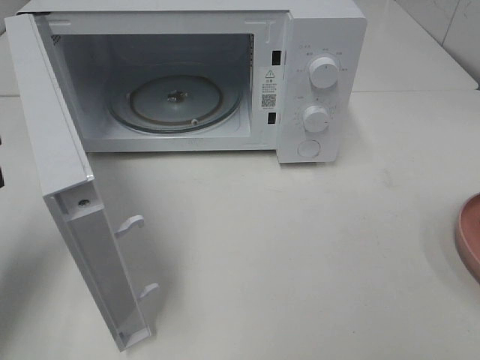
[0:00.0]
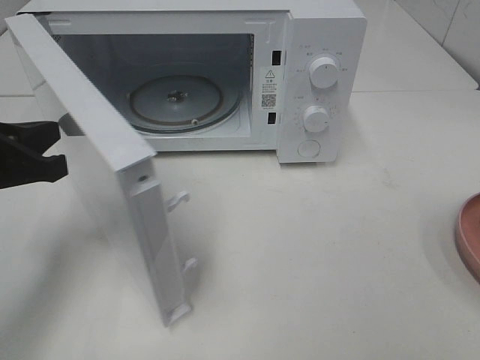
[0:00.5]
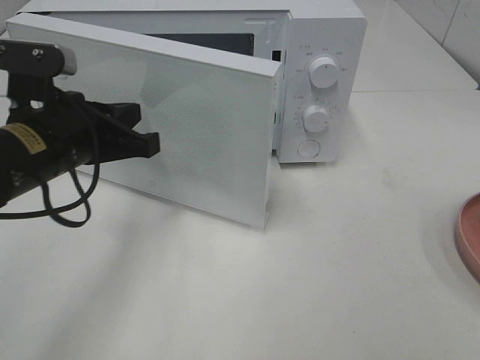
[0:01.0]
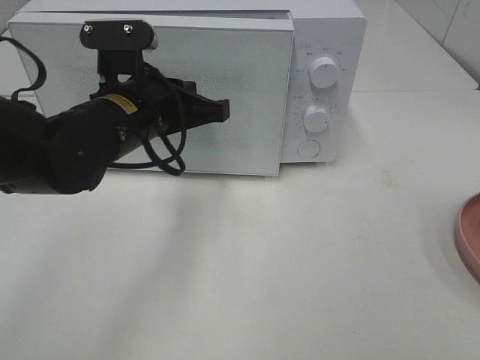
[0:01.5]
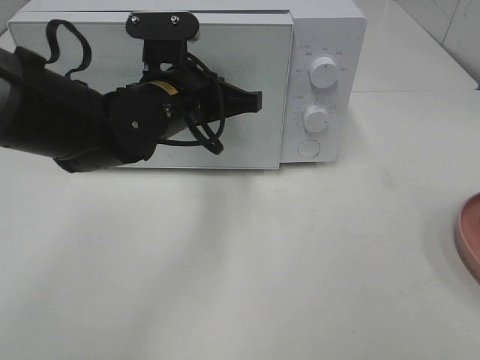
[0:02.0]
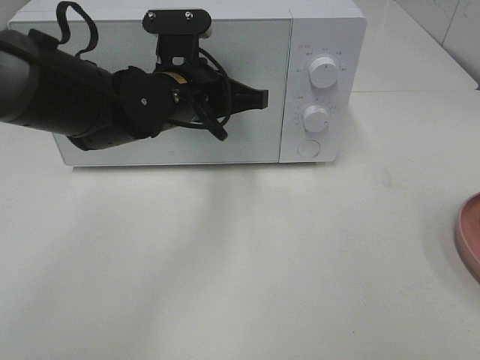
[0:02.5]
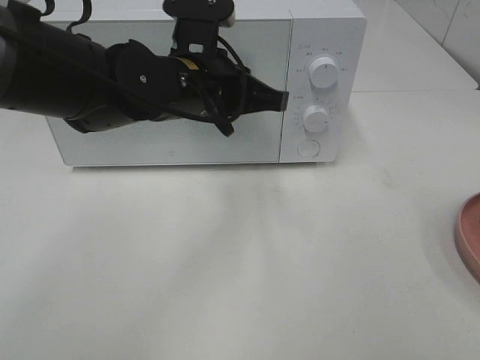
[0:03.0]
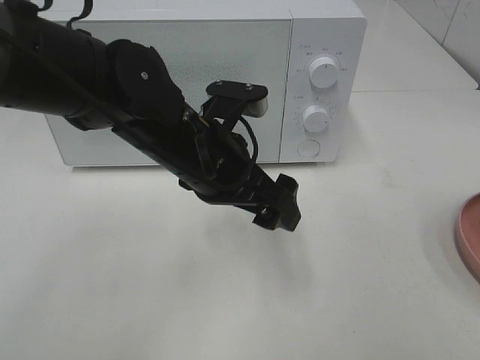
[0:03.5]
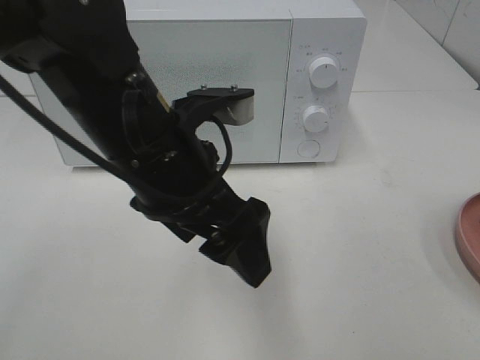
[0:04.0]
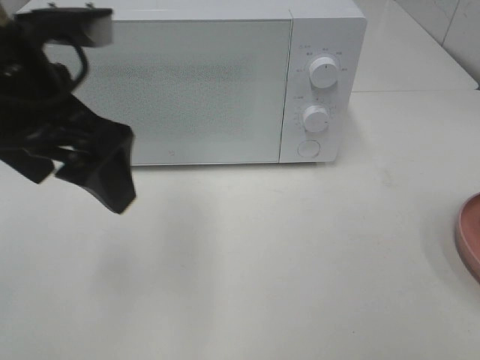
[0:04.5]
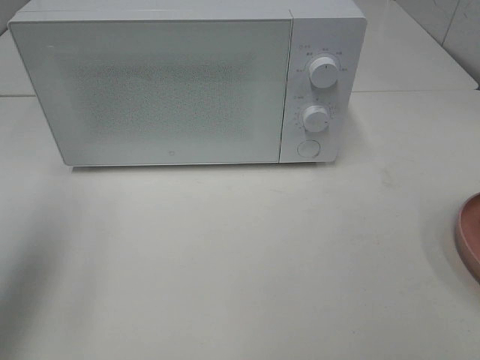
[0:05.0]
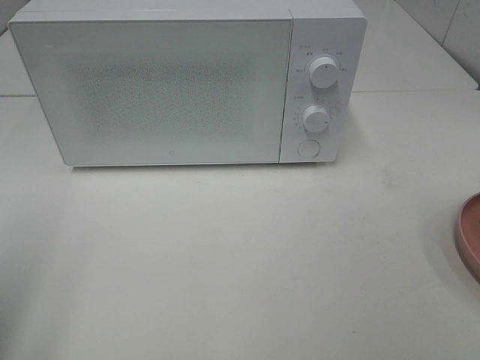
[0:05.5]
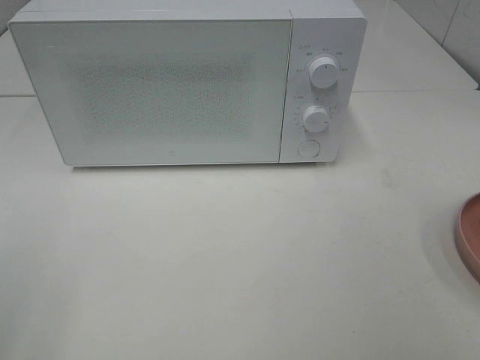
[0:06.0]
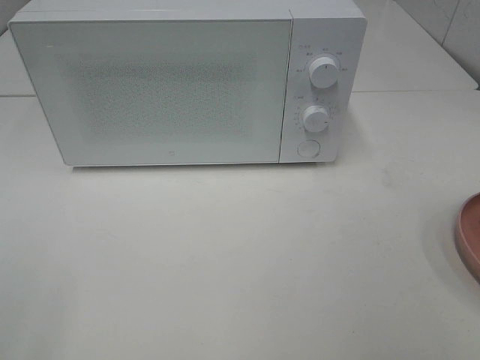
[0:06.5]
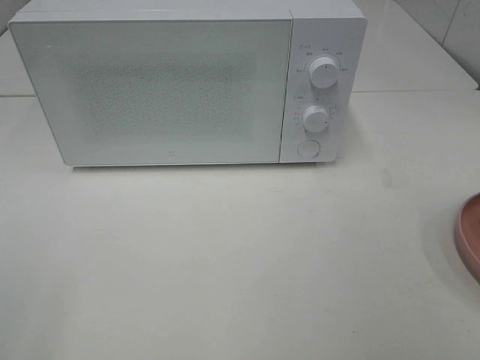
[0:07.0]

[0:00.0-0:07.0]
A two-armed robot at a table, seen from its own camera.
Task of the whole recording: Heat the burger.
Step, 0:00.0 to 0:02.5: Left hand: close the microwave door.
0:00.0 to 0:02.0: The left gripper is displaced to the right and forward by about 25 cm.
0:02.0 to 0:03.5: The left gripper goes about 5 cm backward, and opens up.
0:03.5 to 0:05.0: The left gripper heads to the left and upward, covering approximately 30 cm.
0:05.0 to 0:07.0: The left gripper travels backward by about 20 cm.

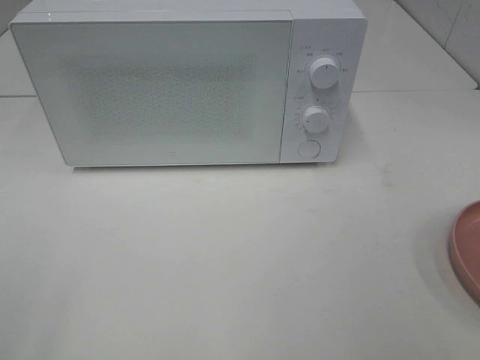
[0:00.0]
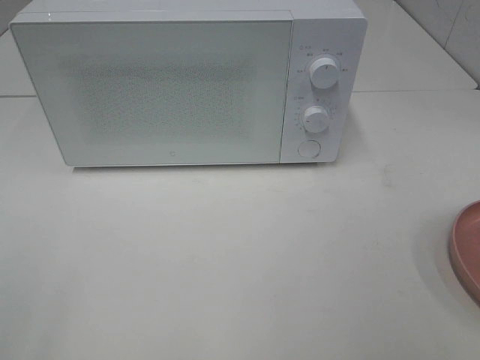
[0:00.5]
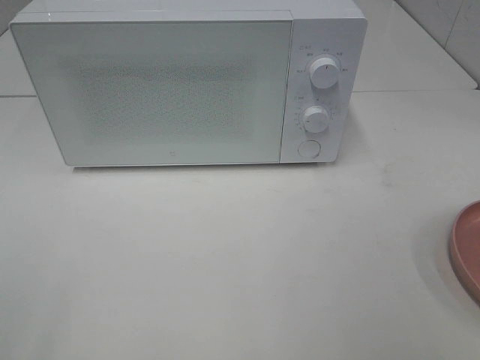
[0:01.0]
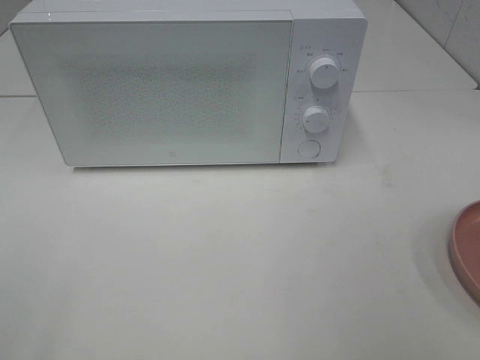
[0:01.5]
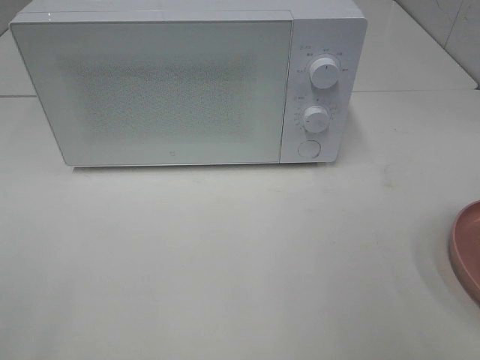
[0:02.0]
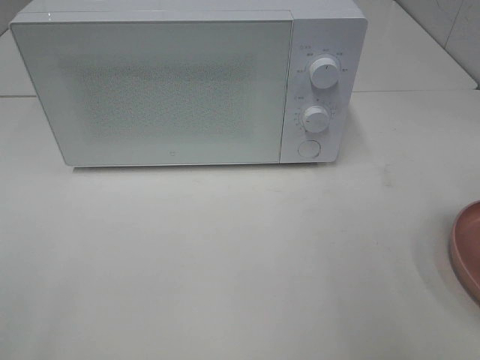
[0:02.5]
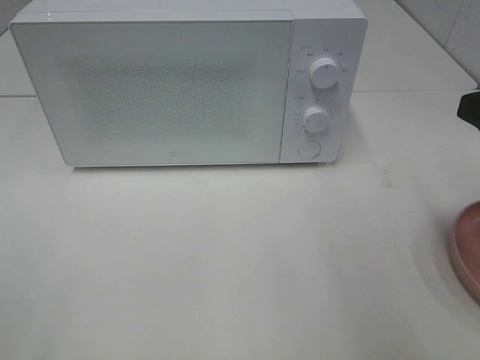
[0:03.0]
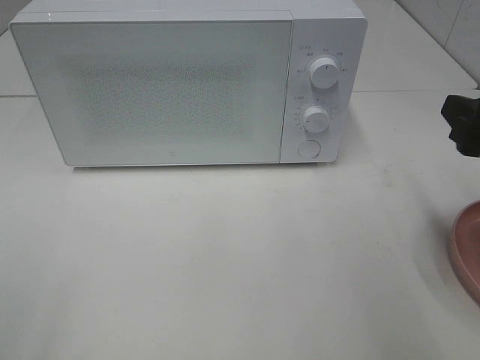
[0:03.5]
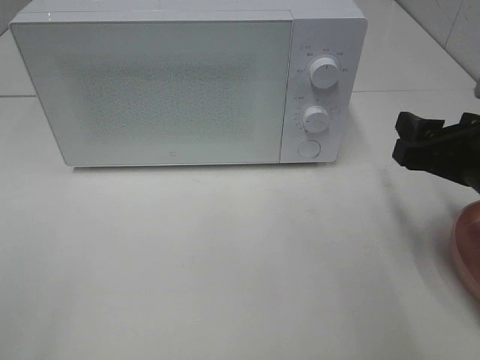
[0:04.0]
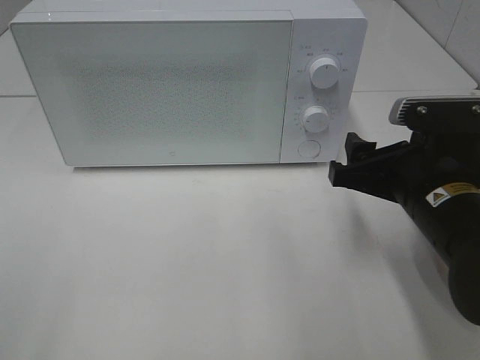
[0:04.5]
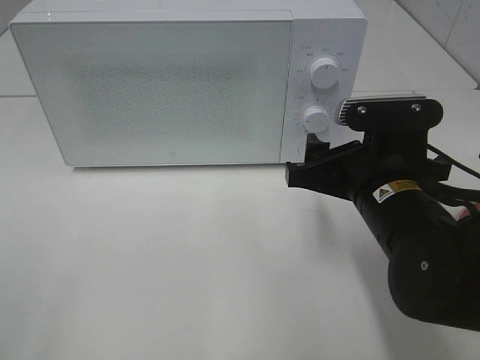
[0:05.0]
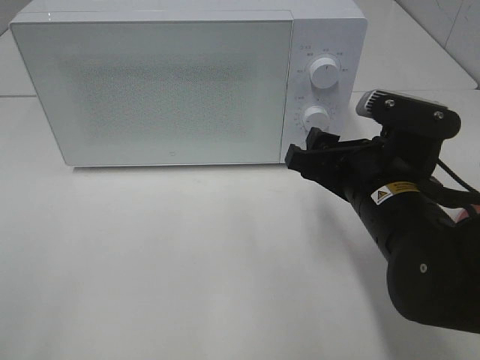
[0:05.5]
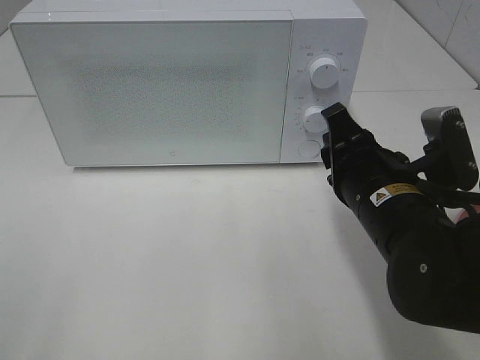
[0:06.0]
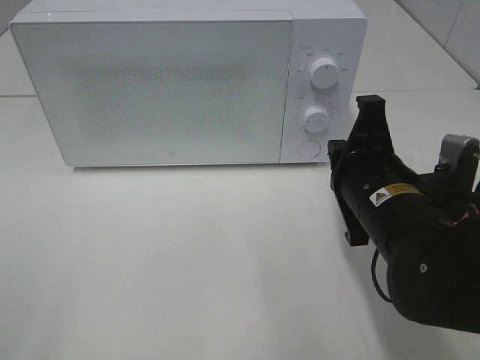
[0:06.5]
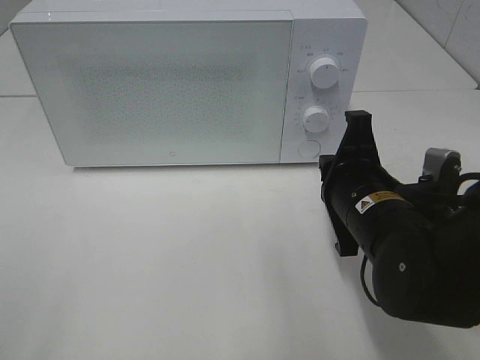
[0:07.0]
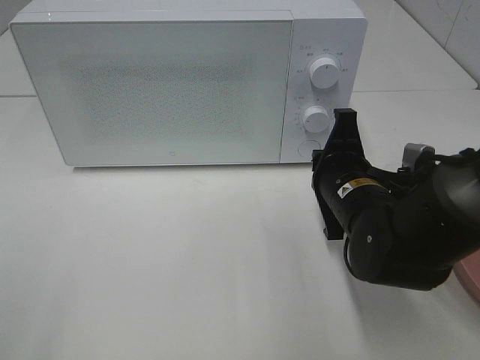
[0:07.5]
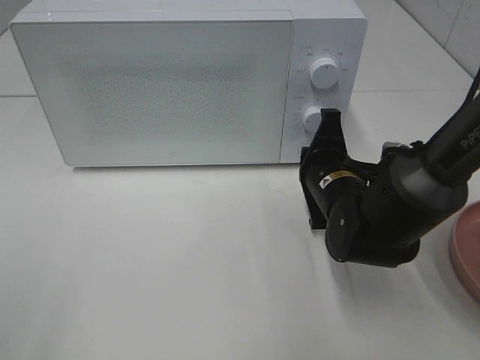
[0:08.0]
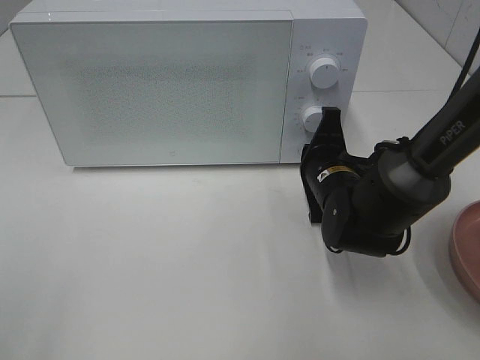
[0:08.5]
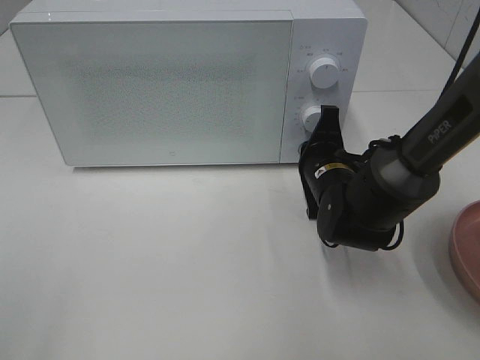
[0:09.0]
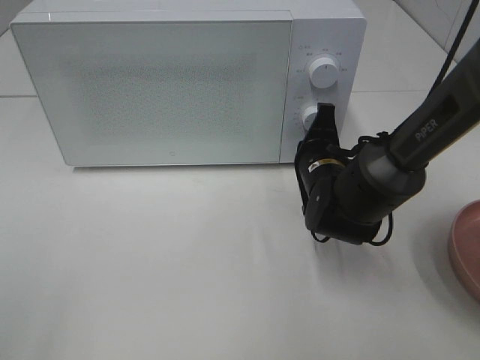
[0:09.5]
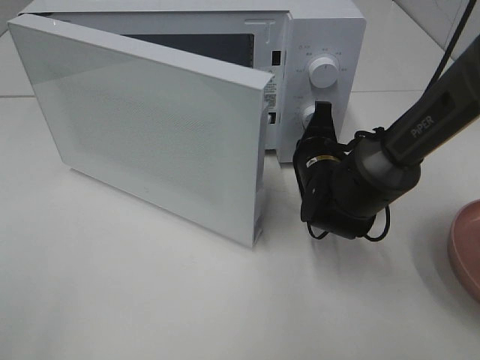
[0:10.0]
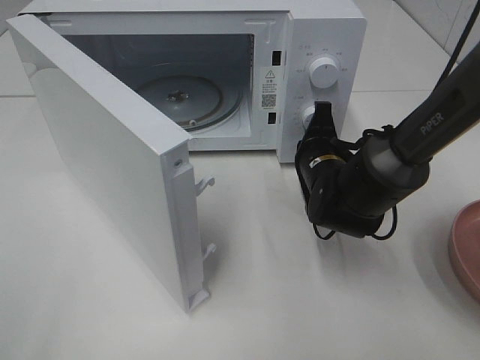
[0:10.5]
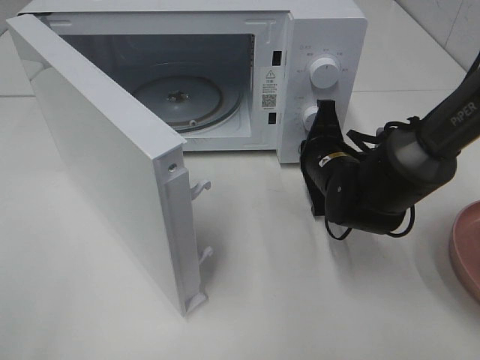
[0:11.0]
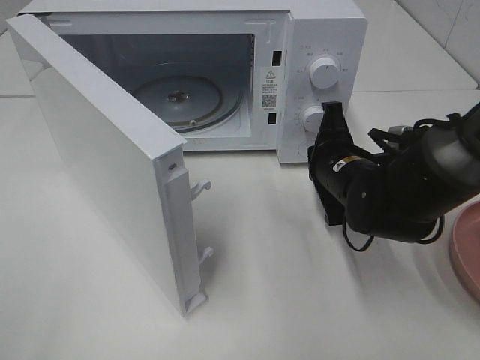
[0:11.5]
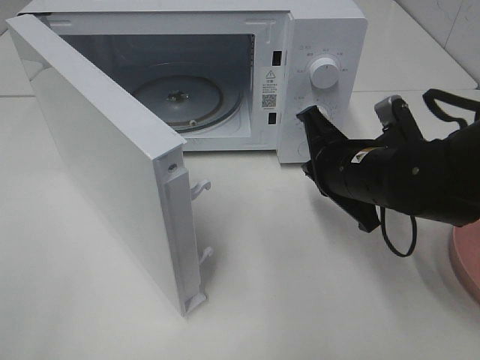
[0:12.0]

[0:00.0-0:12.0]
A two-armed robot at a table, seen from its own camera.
Task of the whole recording: Heat the burger.
Step, 0:00.0 to 0:11.0: Right hand: press the switch.
0:02.0 to 0:04.0: The right gripper moves downward and forward, some 15 cm.
0:04.0 to 0:06.0: The right gripper moves to the left, about 10 cm, and closes.
0:06.0 to 0:08.0: The right gripper travels forward and downward by approximately 10 cm, and closes up.
0:08.0 to 0:10.0: The right gripper ends up roughly 5 cm from where it was.
0:10.0 to 0:12.0: The right gripper moves backward and upward, roughly 10 cm.

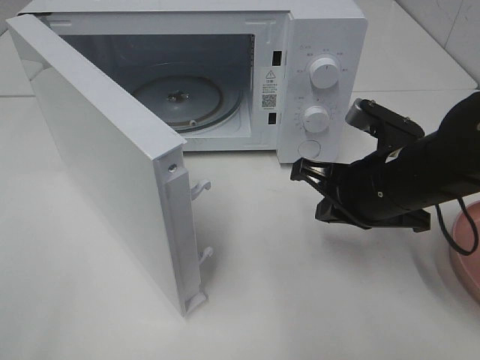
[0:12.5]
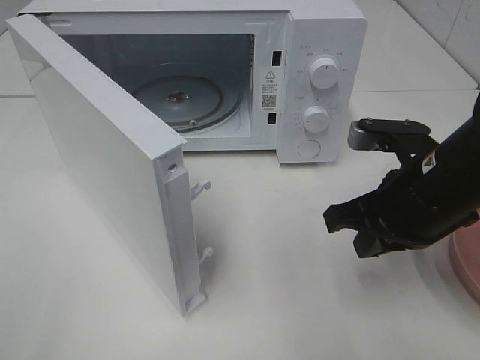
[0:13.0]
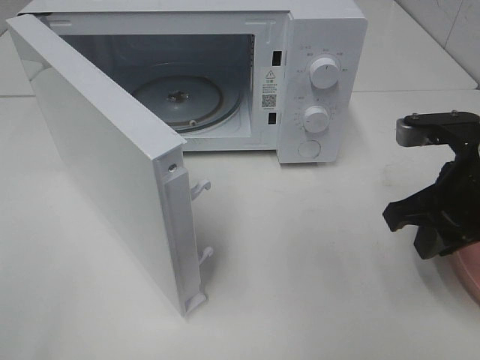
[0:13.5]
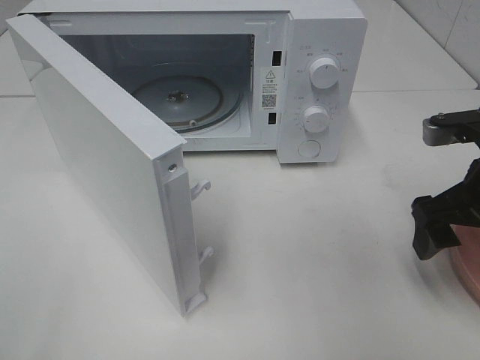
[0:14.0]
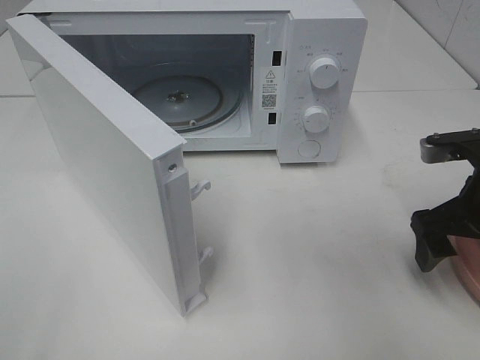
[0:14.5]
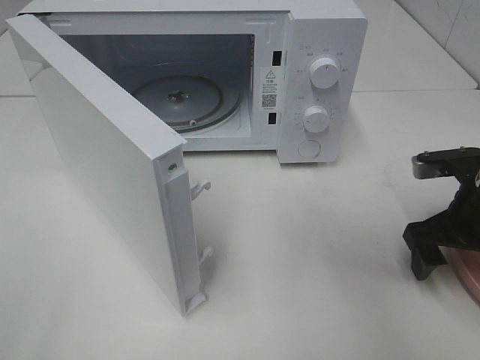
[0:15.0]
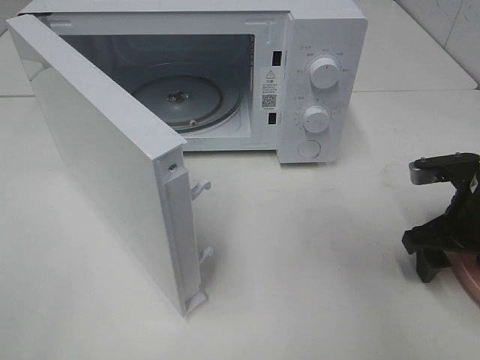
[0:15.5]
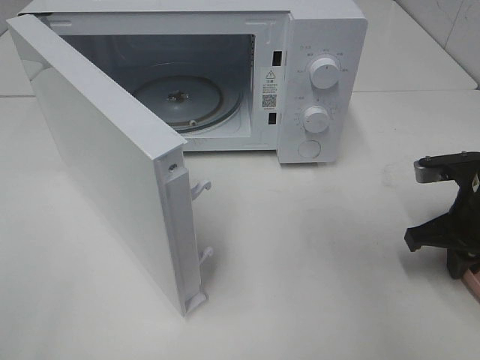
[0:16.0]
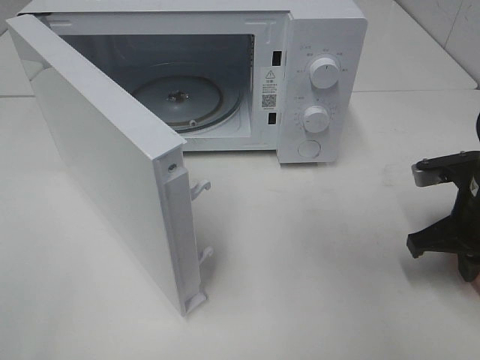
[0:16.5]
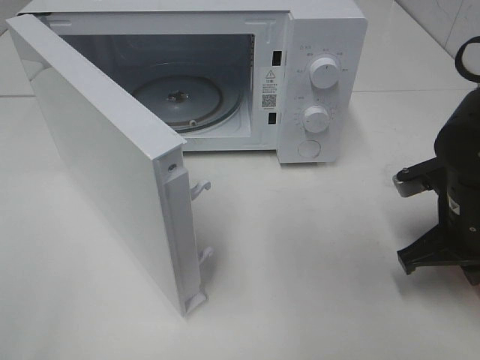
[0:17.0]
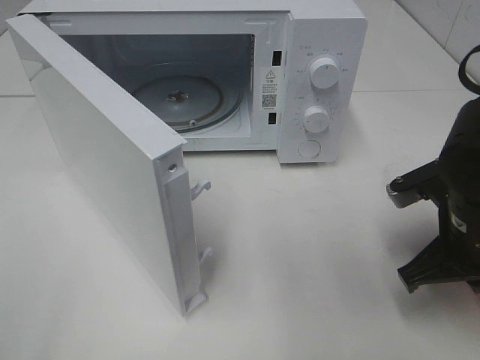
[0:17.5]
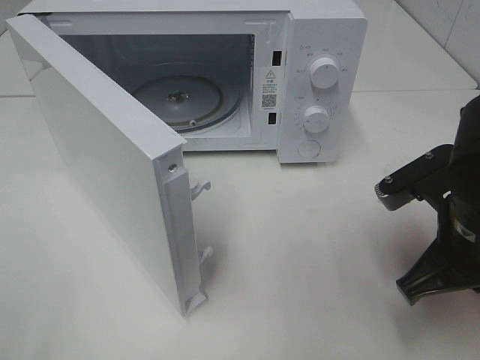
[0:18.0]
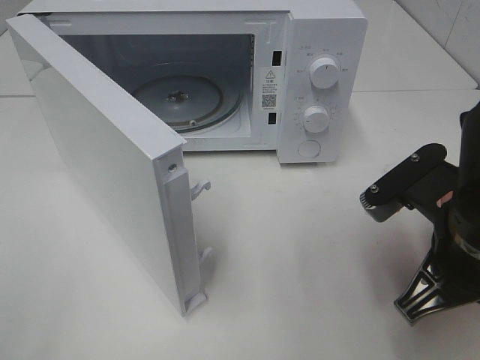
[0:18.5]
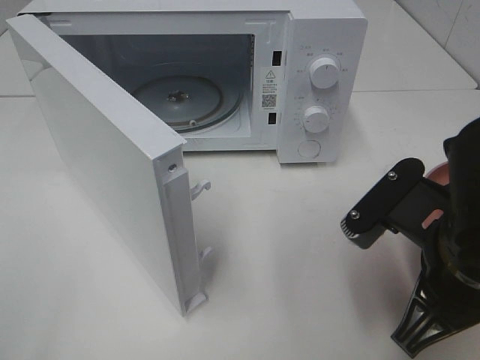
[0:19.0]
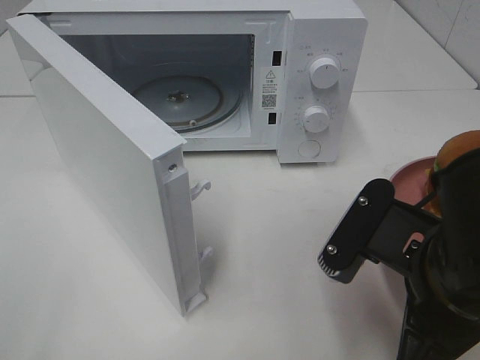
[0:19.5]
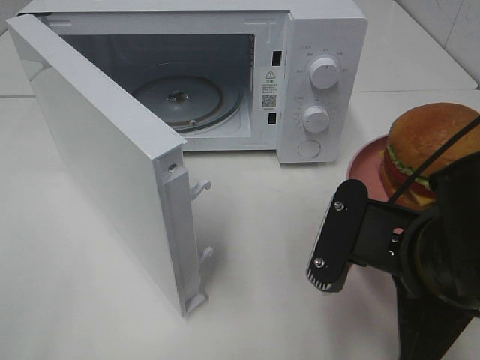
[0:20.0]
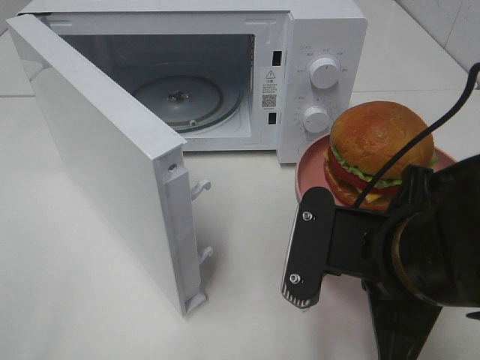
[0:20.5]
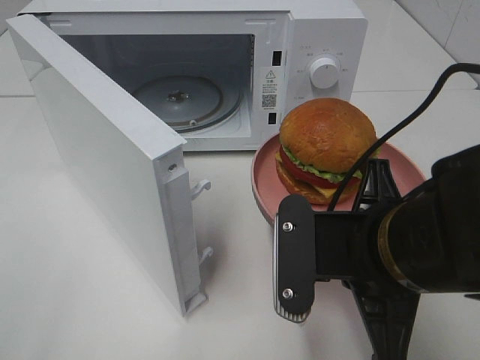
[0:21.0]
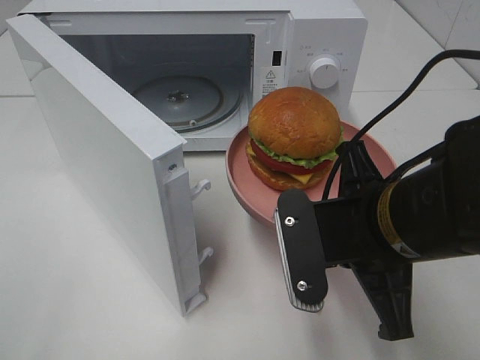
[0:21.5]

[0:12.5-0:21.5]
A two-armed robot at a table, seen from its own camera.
Task of the whole recording: Heat the burger.
Step, 0:12.5 to 0:16.0: Right hand: grab the plate with the hamburger.
0:12.5 to 0:14.5: The right gripper shifts some 10 cm to the right, and opens up.
0:14.5 to 0:17.0: The right gripper closes.
0:17.0 to 0:19.5: The right gripper goes approximately 15 cm backward, to the left and upward.
